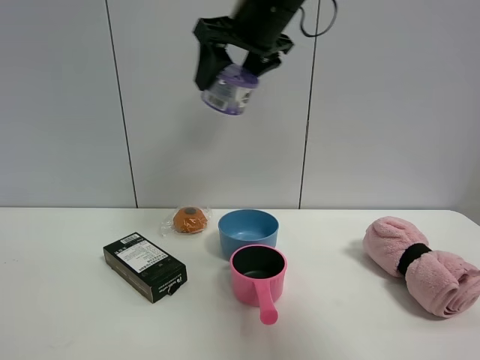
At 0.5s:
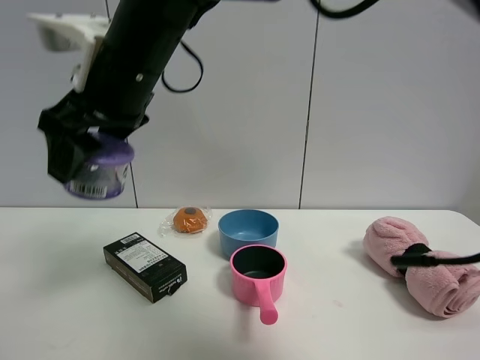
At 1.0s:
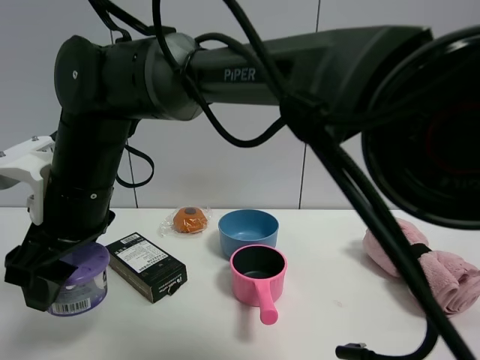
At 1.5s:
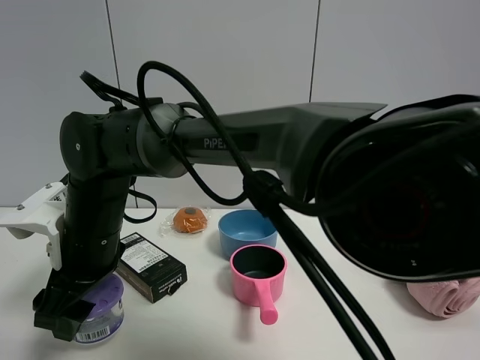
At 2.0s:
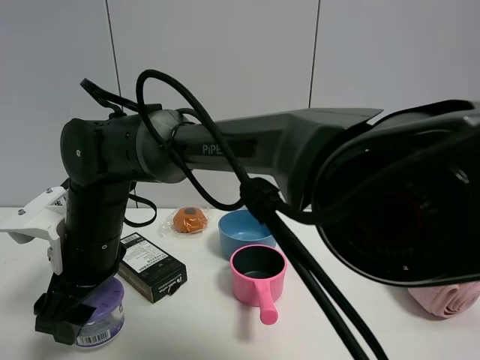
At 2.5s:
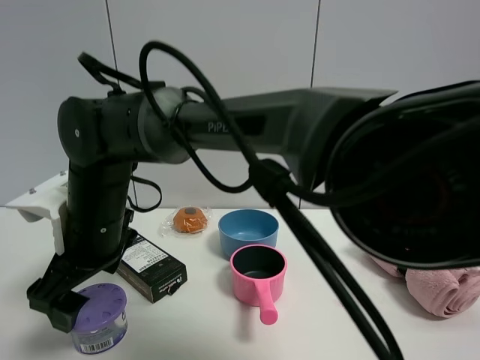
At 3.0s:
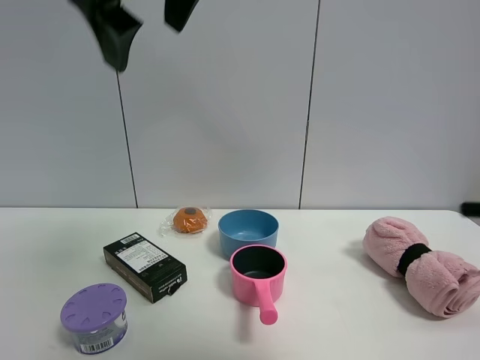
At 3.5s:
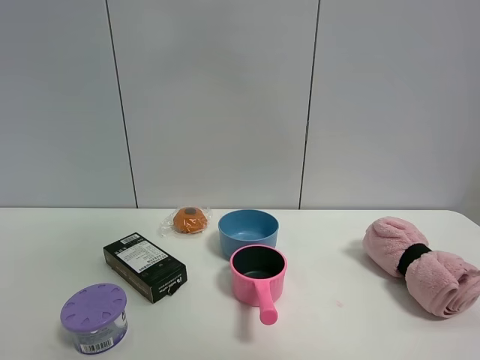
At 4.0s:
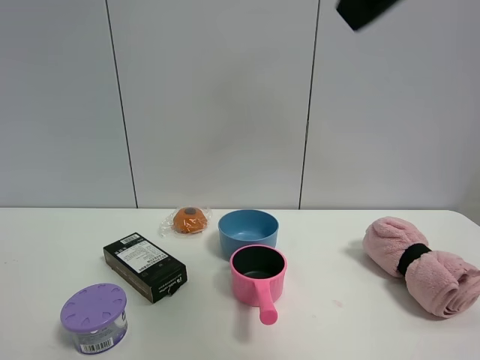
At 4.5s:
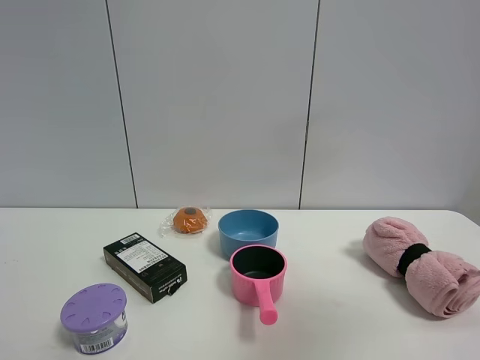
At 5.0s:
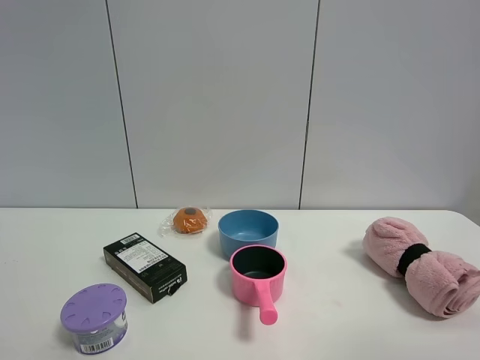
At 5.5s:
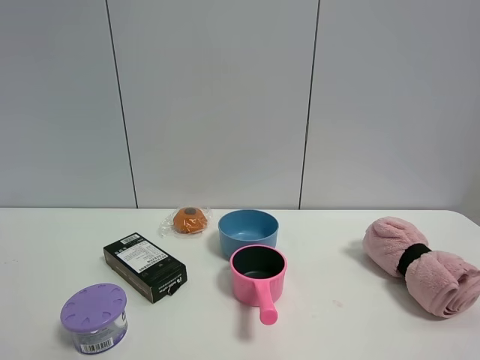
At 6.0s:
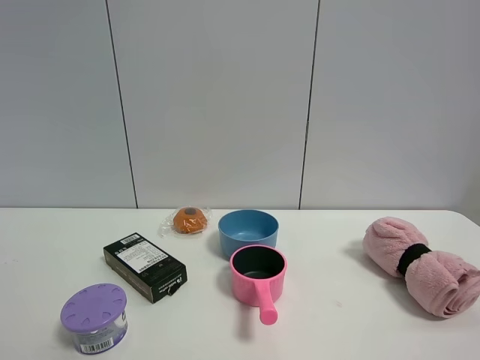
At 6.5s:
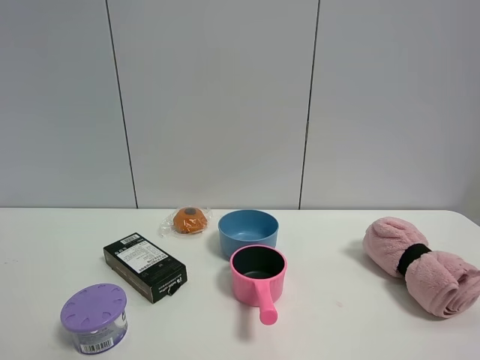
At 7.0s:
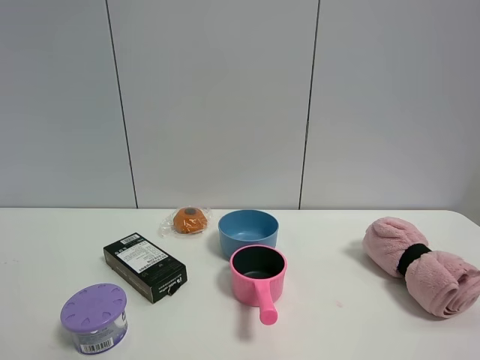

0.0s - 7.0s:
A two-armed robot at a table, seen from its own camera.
Task of the whole recording: the gripper move the object.
Step, 0.0s - 2.5s: Place the Incense box on the table with the right gripper.
0.0s - 2.0s: The right gripper shifts roughly 30 cm downward, to the left and backward.
2.0s - 3.5s: The right gripper goes about 50 cm upward and to the right, and opens up.
3.5s - 5.0s: The right gripper goes some 35 cm downward, to the right and backward.

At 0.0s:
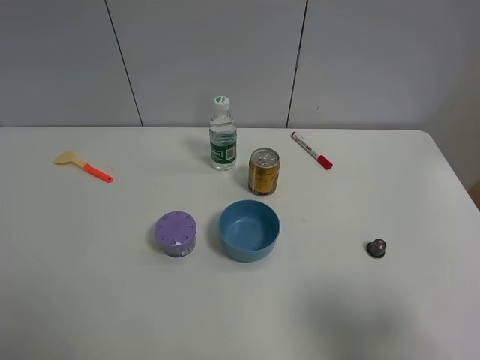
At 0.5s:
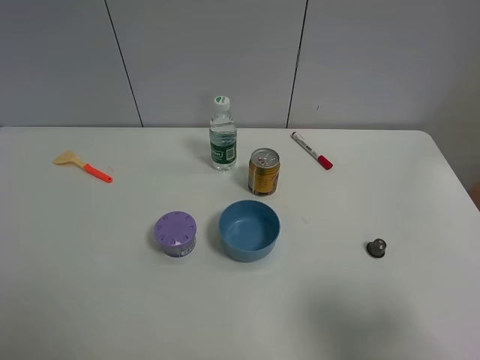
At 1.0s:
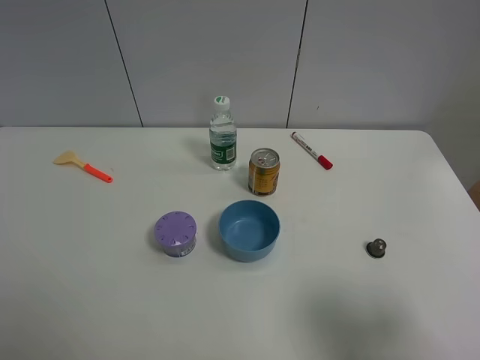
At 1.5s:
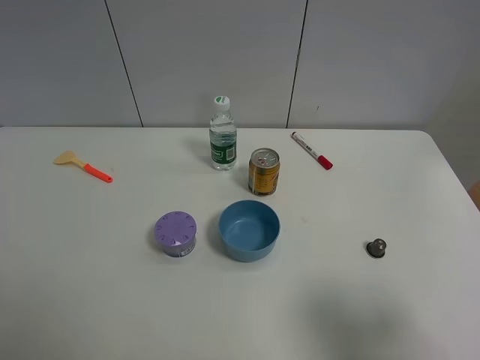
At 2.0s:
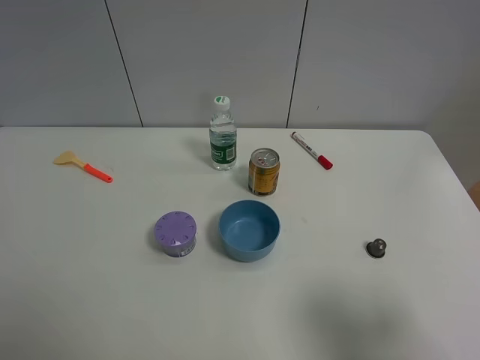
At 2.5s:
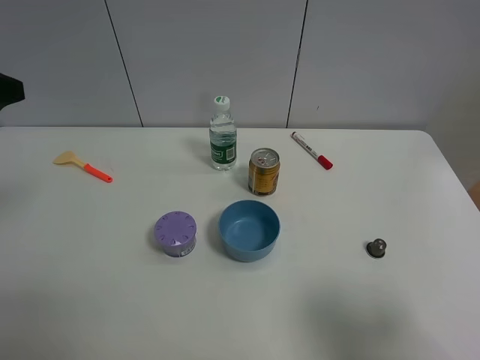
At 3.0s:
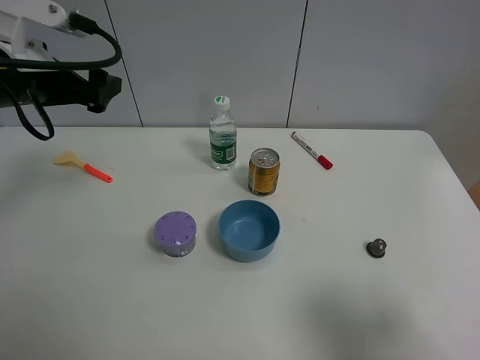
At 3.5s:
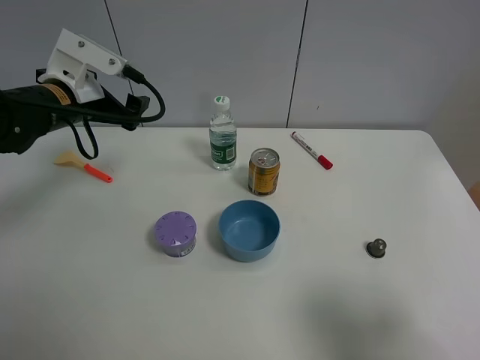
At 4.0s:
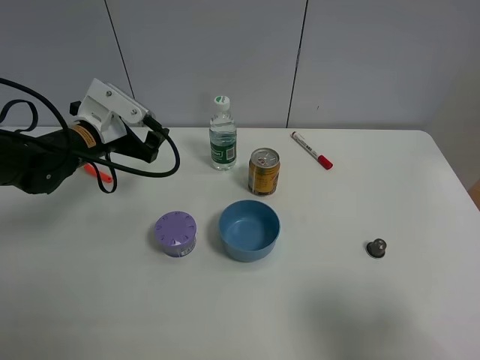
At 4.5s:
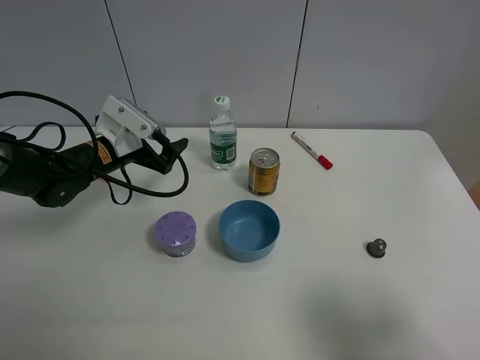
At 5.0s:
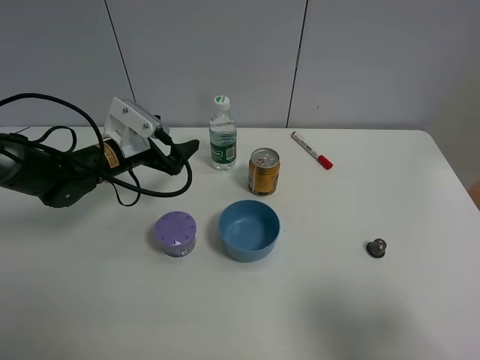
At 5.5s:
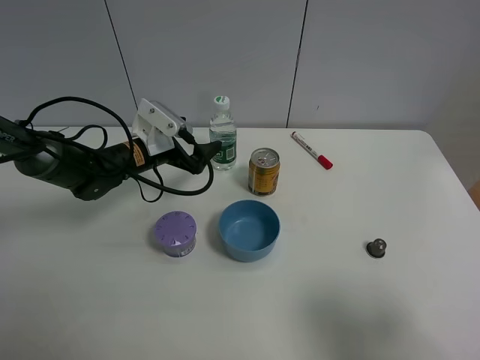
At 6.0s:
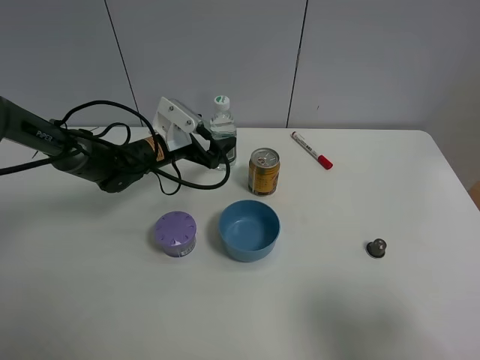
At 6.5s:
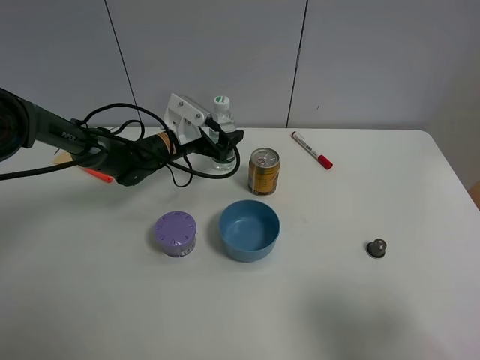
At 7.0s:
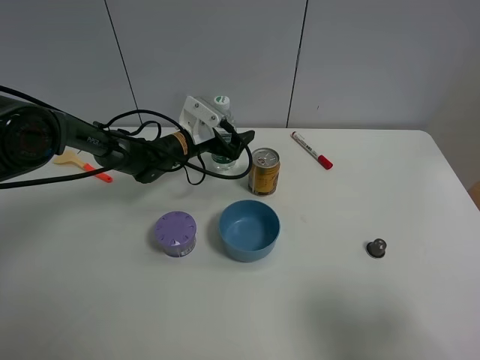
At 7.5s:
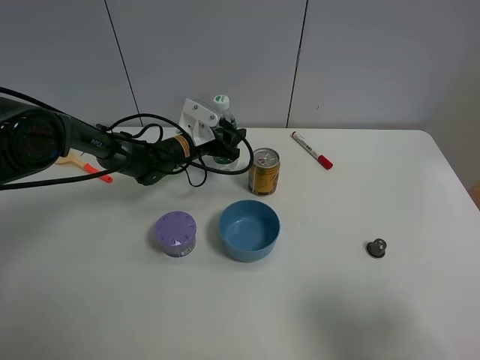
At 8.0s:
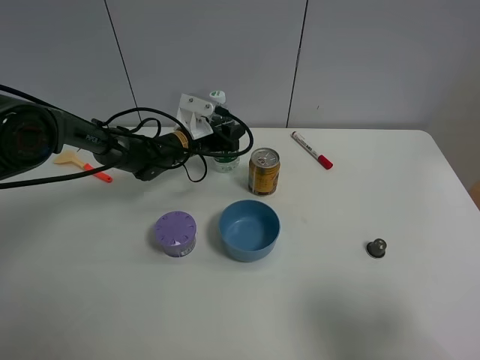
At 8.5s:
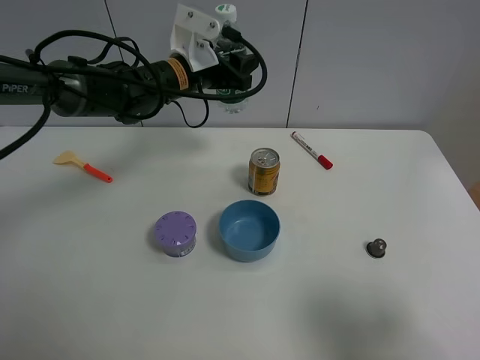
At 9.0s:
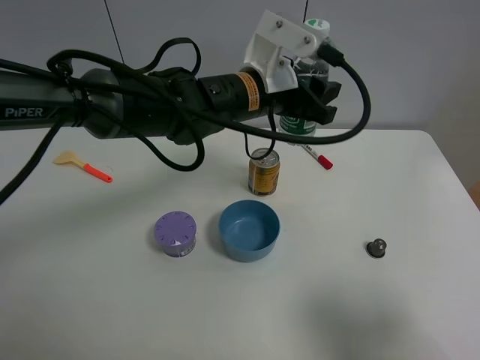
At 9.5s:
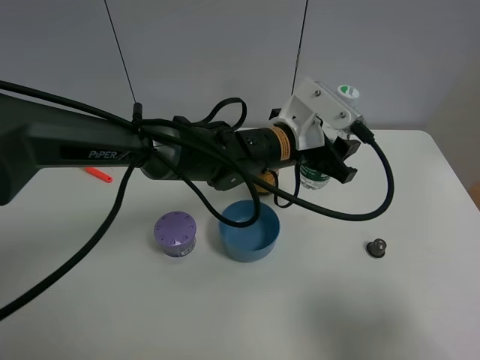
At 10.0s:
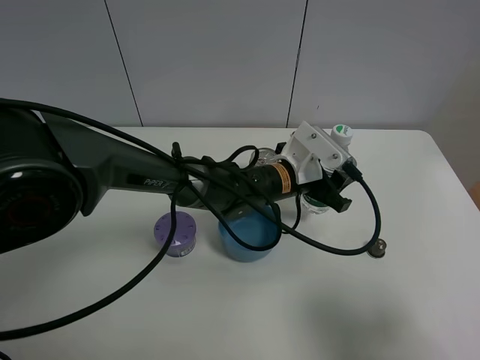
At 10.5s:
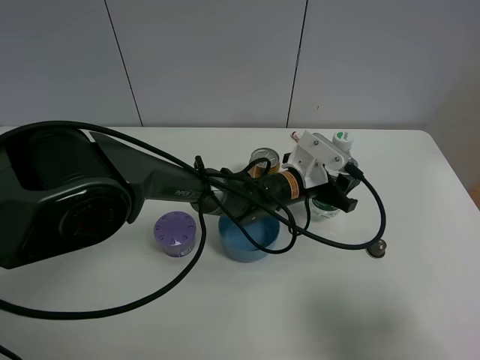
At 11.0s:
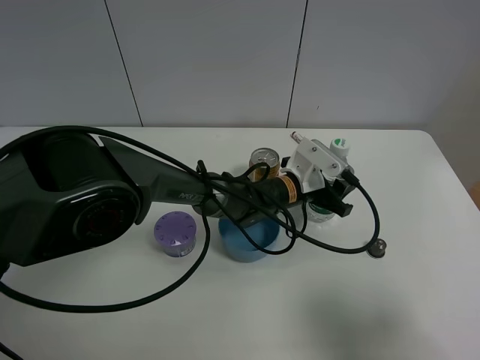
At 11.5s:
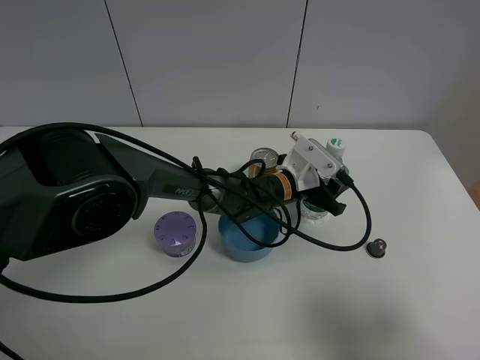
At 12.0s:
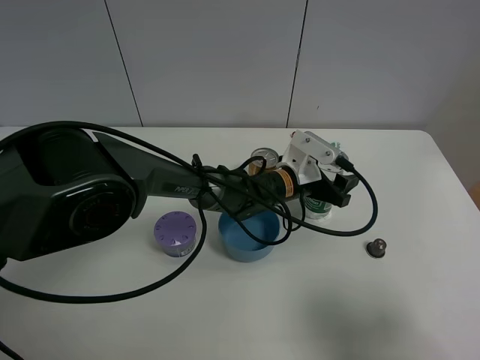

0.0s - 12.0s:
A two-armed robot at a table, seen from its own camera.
Task of the whole recording: the gripper move the object.
Step, 0.0s - 7.5s: Grasp the YiBao mineral water with the left gripper.
2.0s - 4.0s: The left gripper is displaced forward, downward and to the right by roughly 30 cm.
4.0s - 6.0s: The left gripper moves to the right, downward and forward, roughly 10 cm.
6.0s - 8.0s: The left gripper ends up roughly 5 cm from where it was, and closes its fingers.
8.0s - 10.0s: The left gripper is displaced to the right and backward by approximately 20 cm.
10.0s - 12.0s: The left gripper moves some 5 cm, and opens its fingers.

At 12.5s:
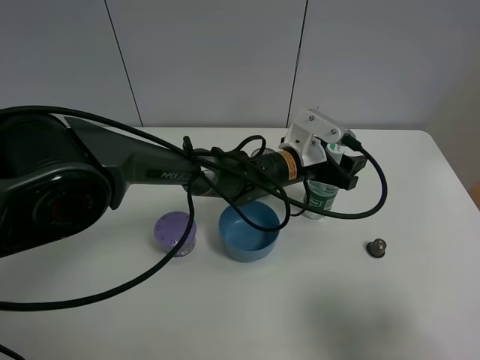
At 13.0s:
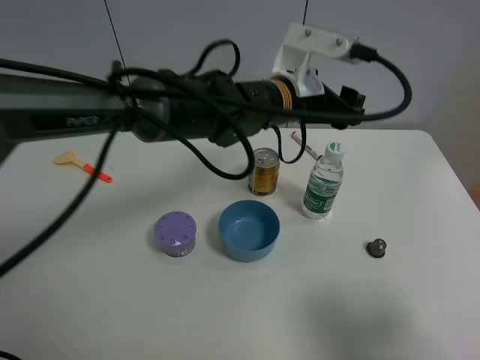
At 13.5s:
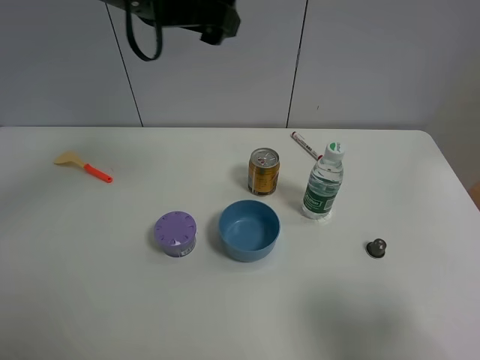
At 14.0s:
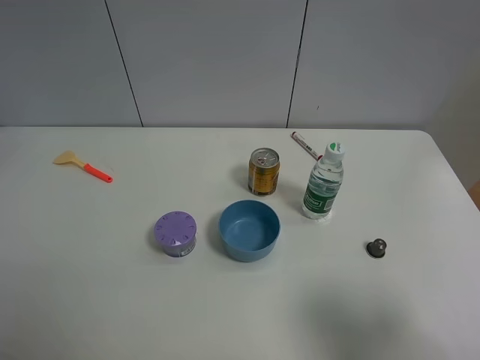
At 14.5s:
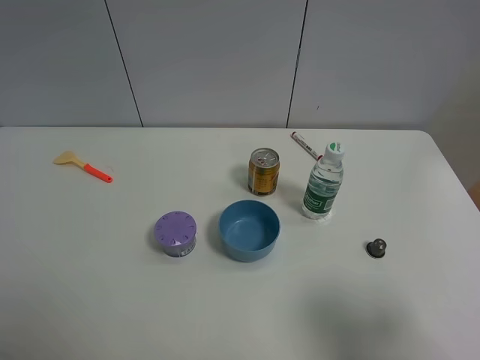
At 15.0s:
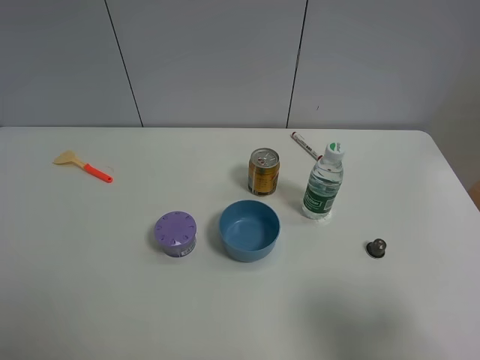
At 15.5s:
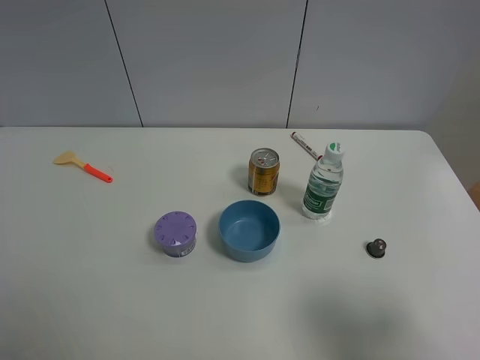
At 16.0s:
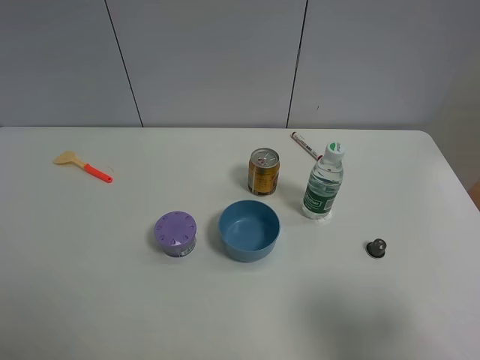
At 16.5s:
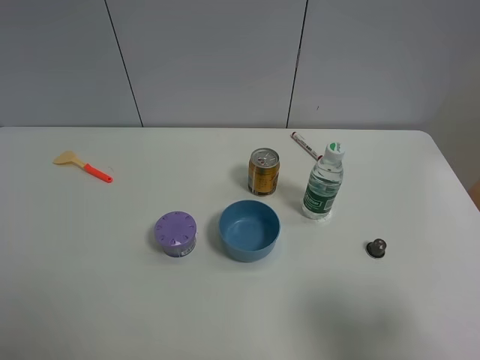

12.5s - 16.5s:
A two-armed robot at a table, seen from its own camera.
Task of the whole recording: the gripper move the object.
12.5s - 14.5s: The left gripper travels to the left, upward and backward by some 60 cm, and opens.

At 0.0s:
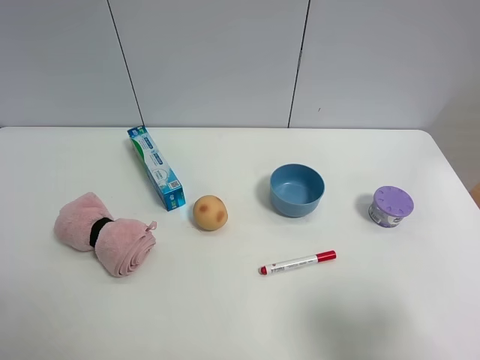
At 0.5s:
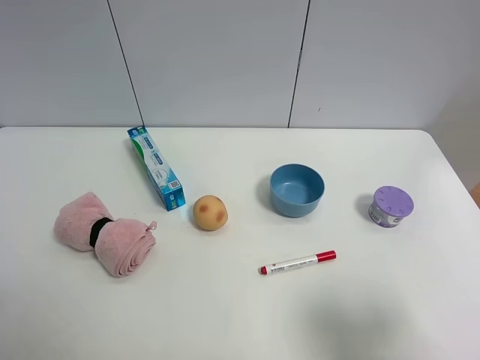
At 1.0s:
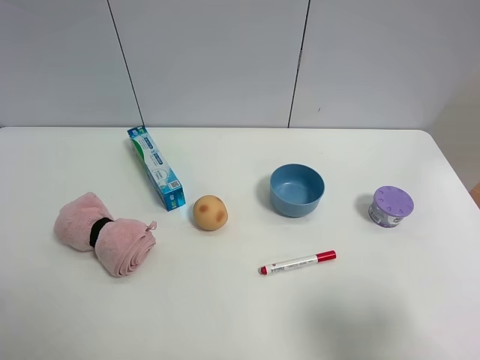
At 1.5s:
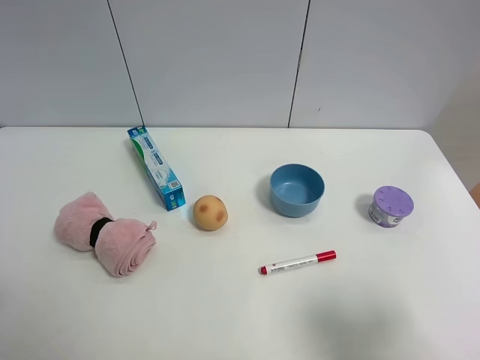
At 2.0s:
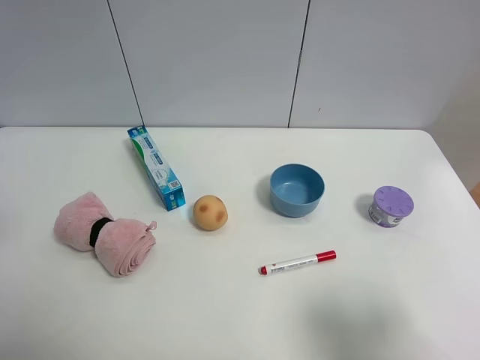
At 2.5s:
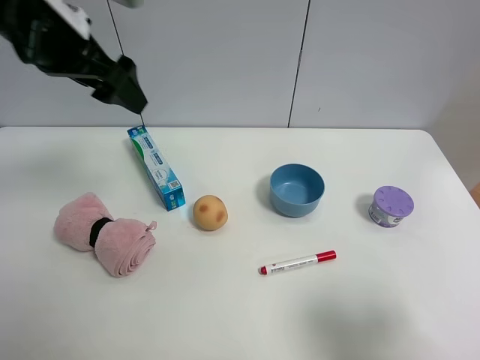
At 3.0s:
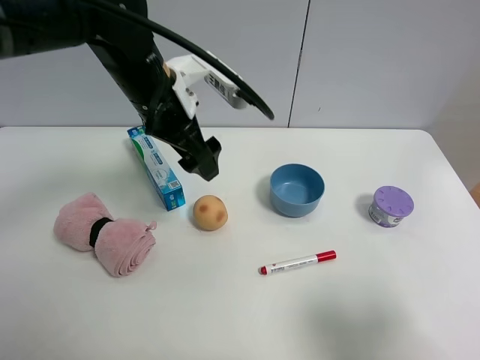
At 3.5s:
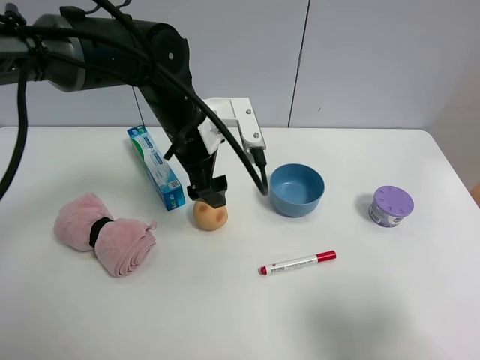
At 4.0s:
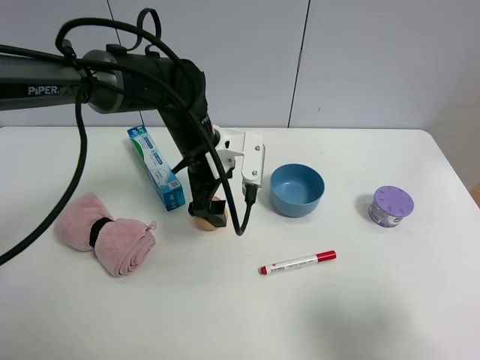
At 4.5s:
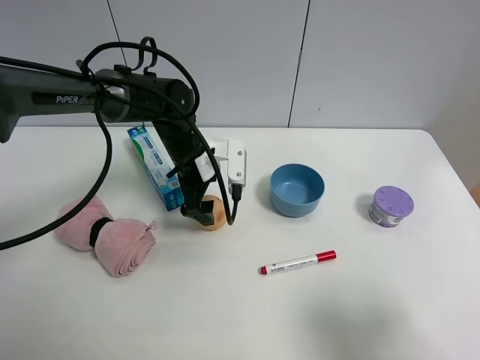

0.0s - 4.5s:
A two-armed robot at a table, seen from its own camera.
Task of the whole recording: the gripper move the object.
2.0s - 4.5s: The left gripper moves downward, to the right and forward, about 40 cm.
